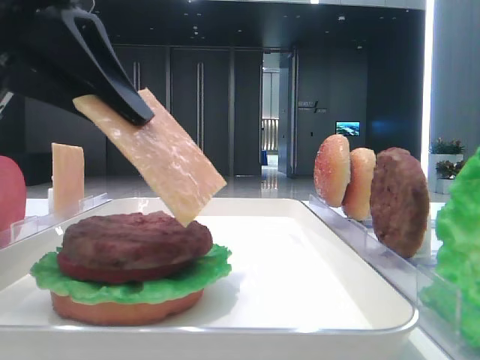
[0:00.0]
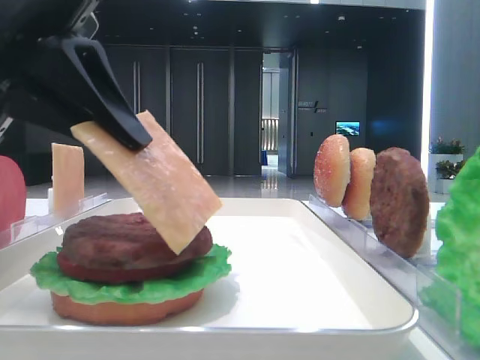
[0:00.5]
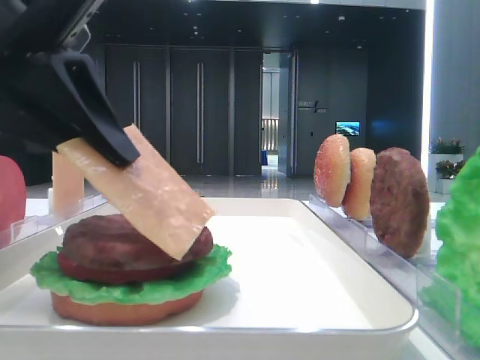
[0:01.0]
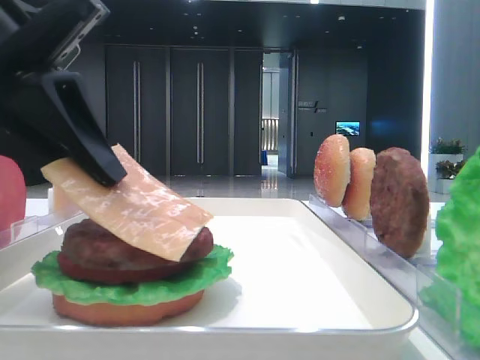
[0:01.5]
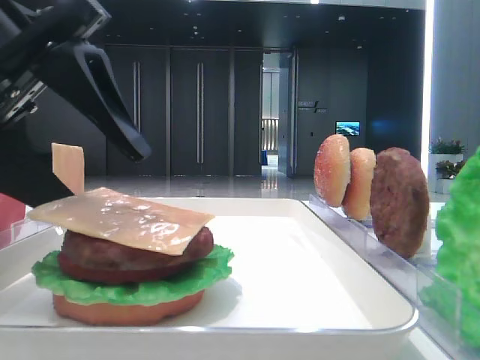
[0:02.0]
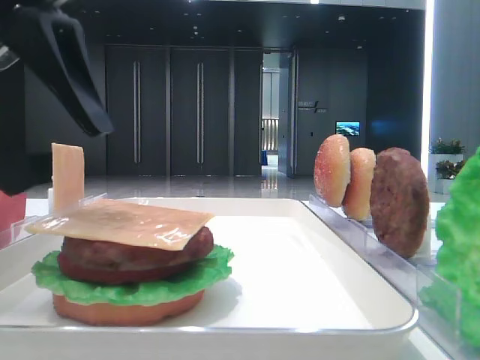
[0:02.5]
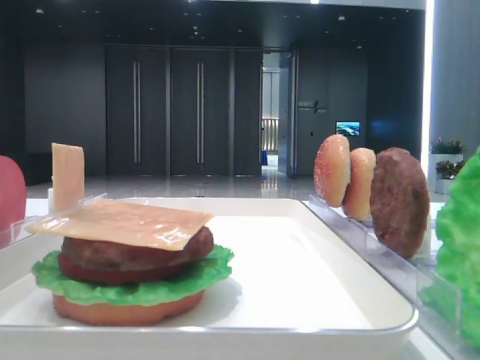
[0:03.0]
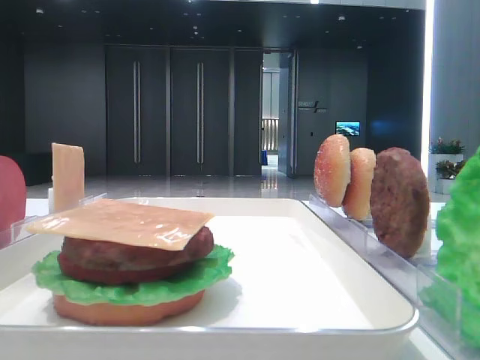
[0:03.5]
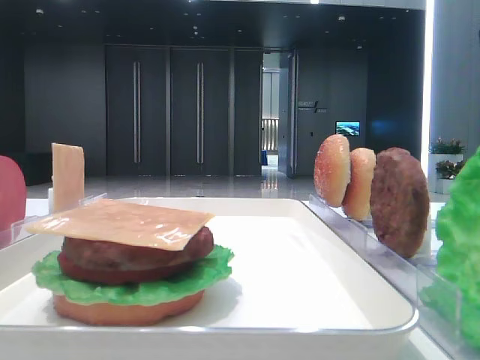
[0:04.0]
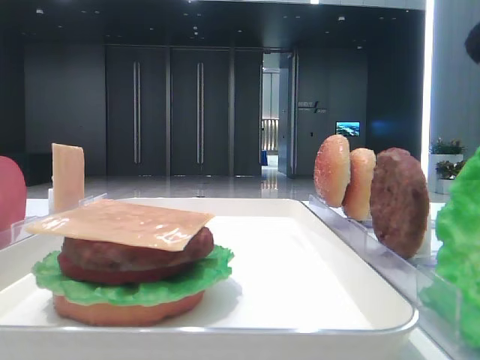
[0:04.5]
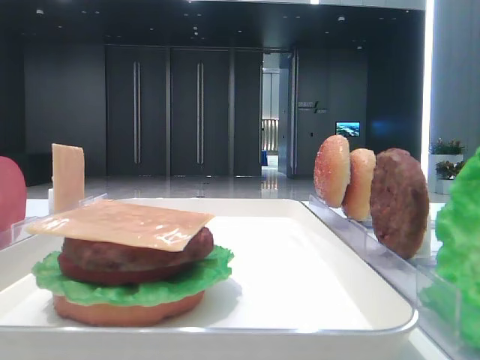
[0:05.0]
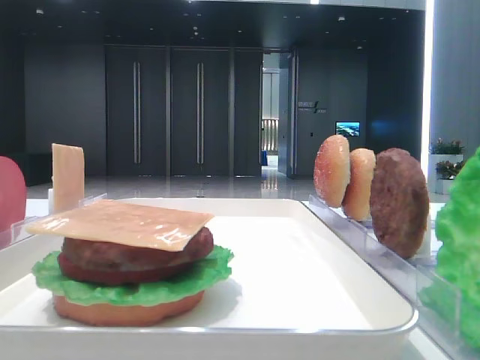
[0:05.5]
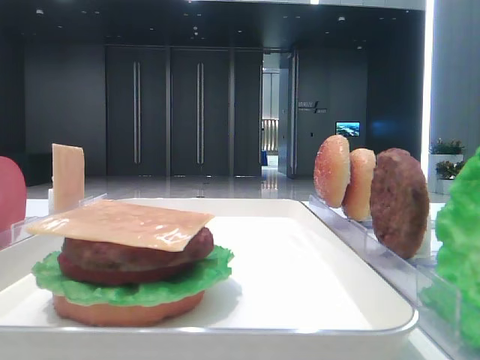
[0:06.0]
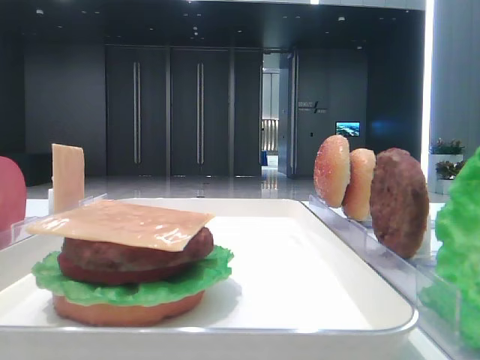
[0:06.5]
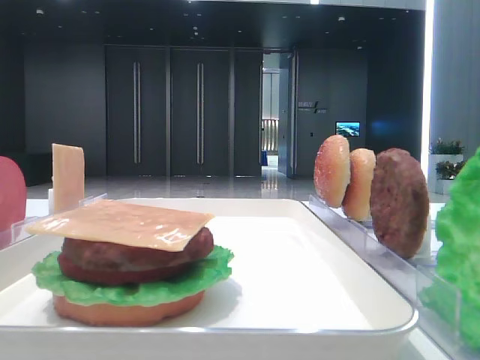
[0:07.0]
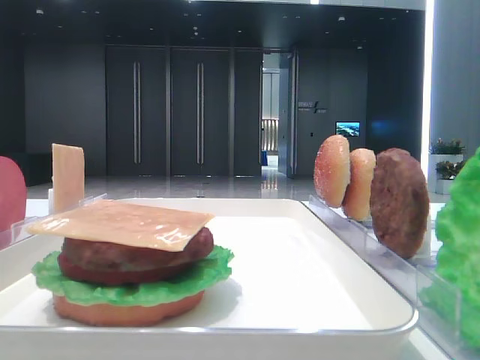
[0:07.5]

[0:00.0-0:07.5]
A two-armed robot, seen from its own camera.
Step, 0:00.0 to 0:02.0: Place the cheese slice on the patty with the left hand.
0:00.0 to 0:02.0: The left gripper opens.
0:02.0 to 0:04.0: The left gripper travels to the left and upward by some 20 cm.
